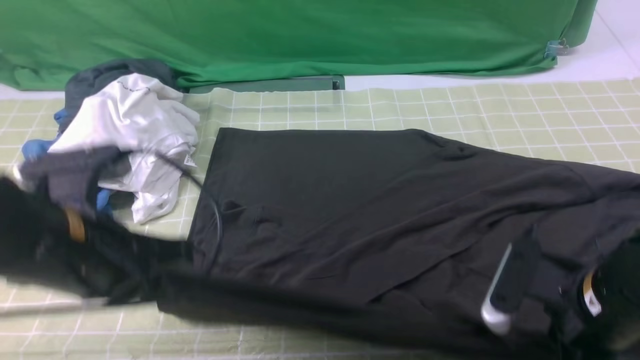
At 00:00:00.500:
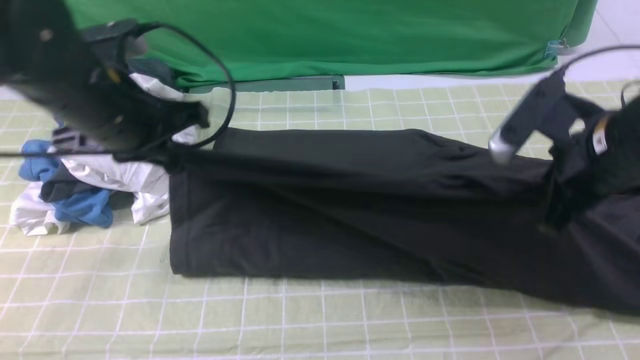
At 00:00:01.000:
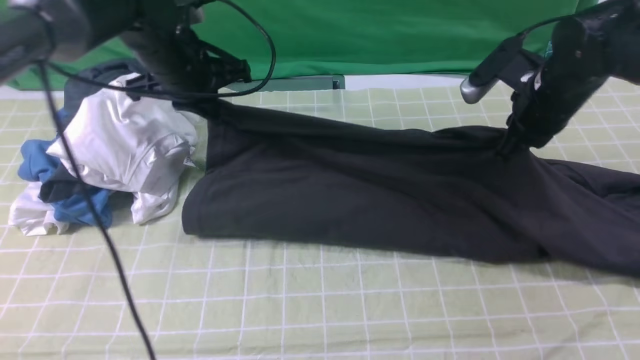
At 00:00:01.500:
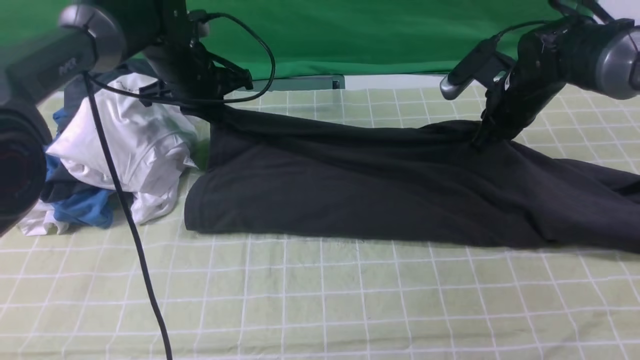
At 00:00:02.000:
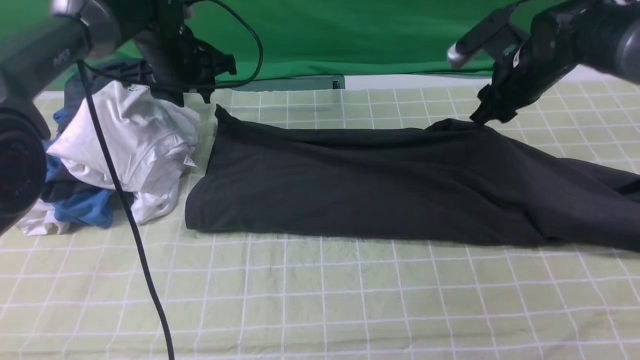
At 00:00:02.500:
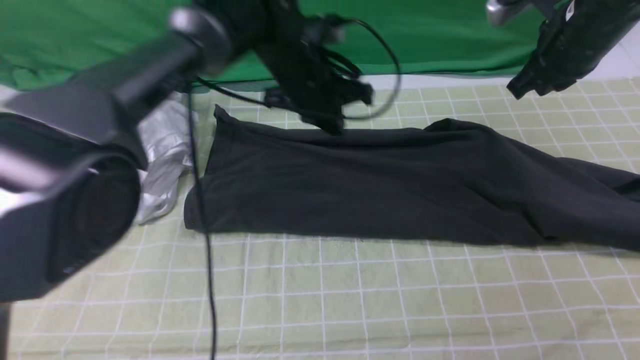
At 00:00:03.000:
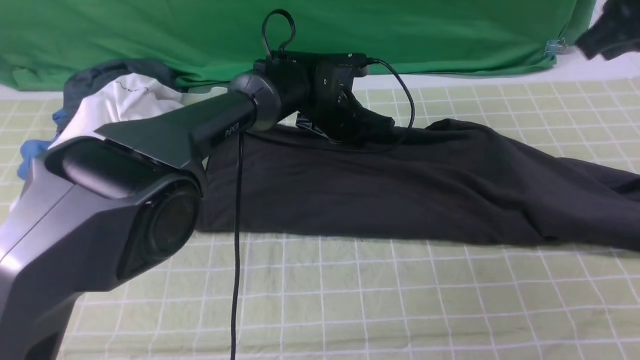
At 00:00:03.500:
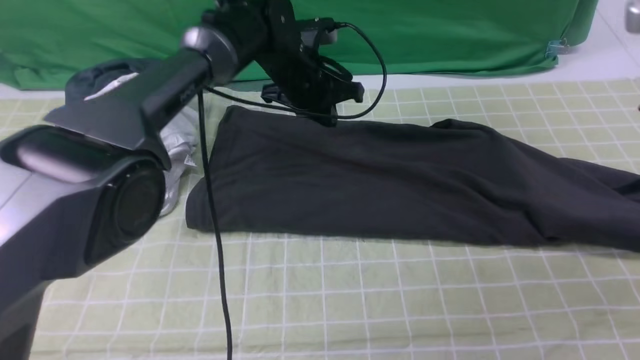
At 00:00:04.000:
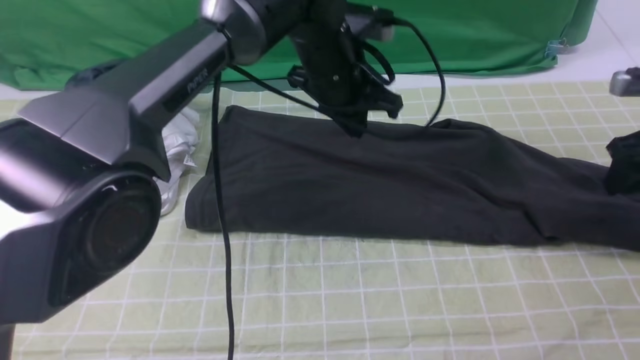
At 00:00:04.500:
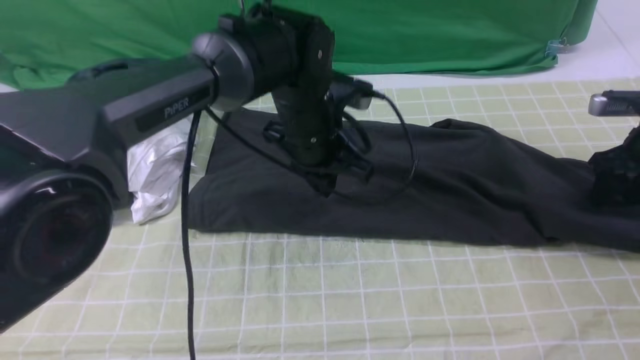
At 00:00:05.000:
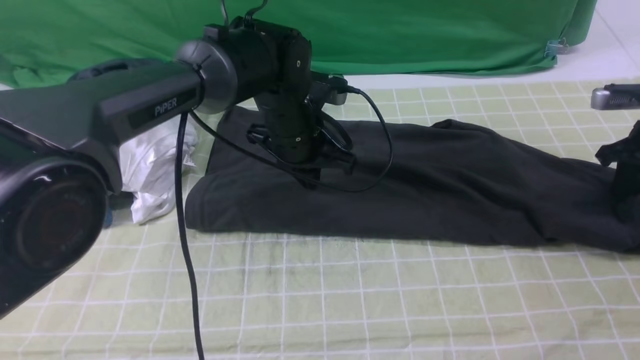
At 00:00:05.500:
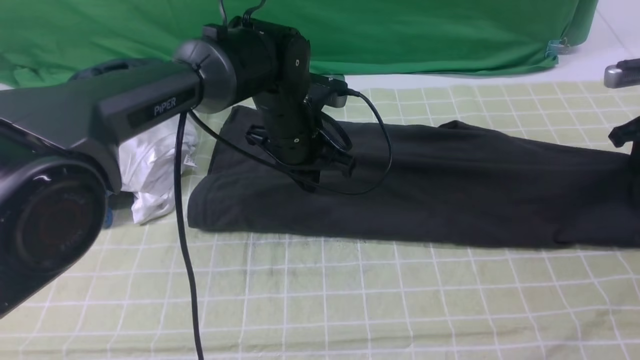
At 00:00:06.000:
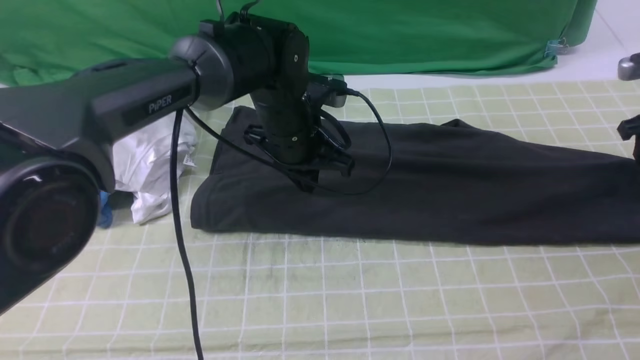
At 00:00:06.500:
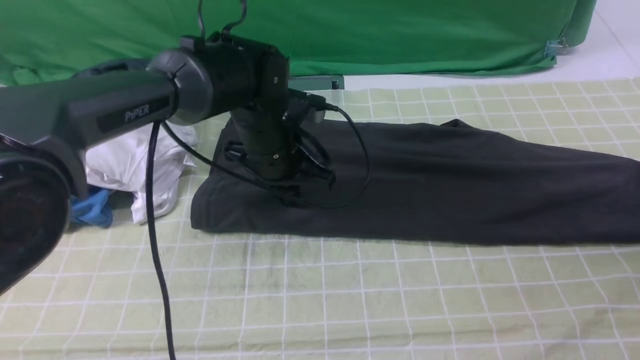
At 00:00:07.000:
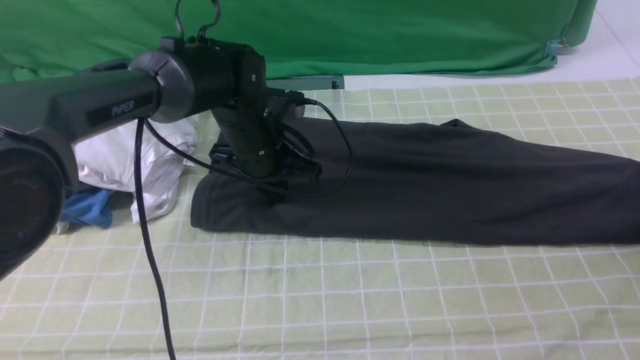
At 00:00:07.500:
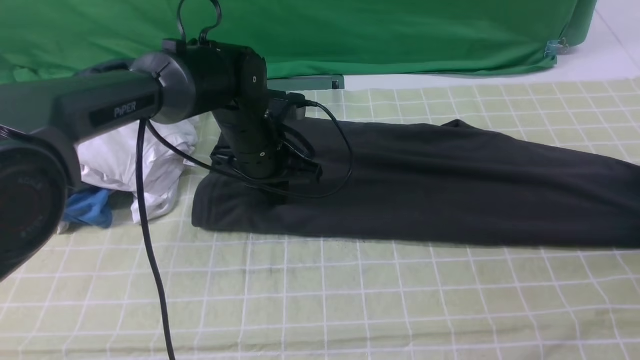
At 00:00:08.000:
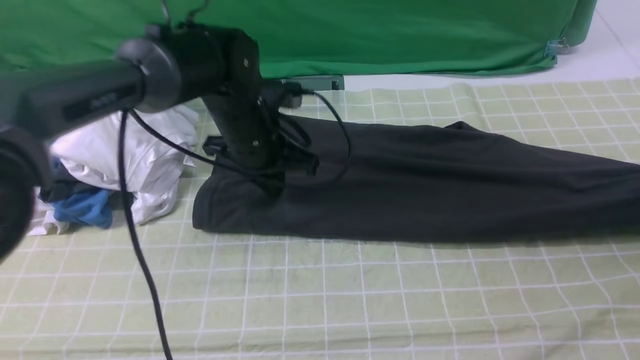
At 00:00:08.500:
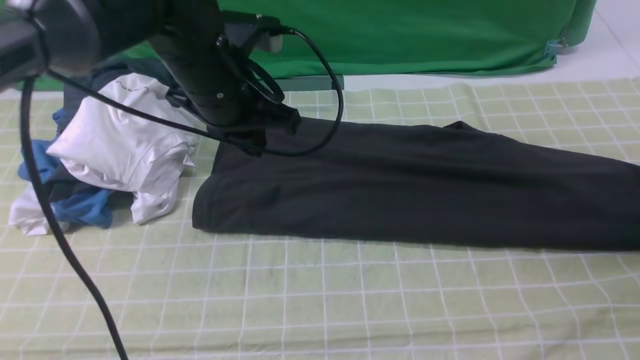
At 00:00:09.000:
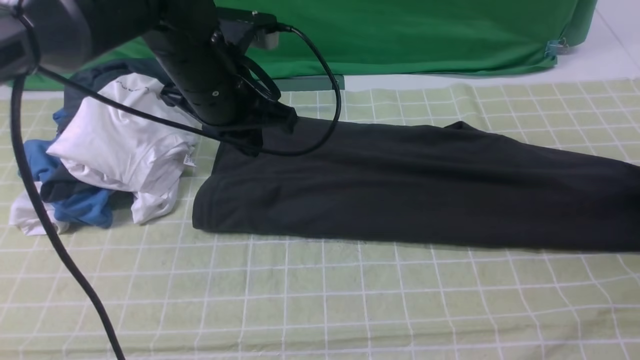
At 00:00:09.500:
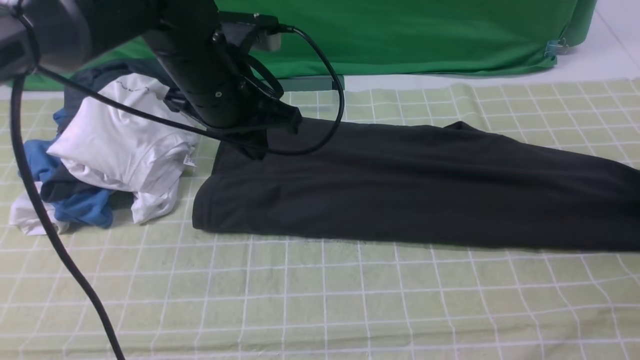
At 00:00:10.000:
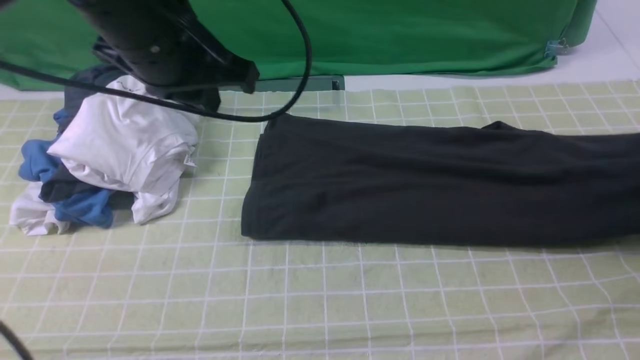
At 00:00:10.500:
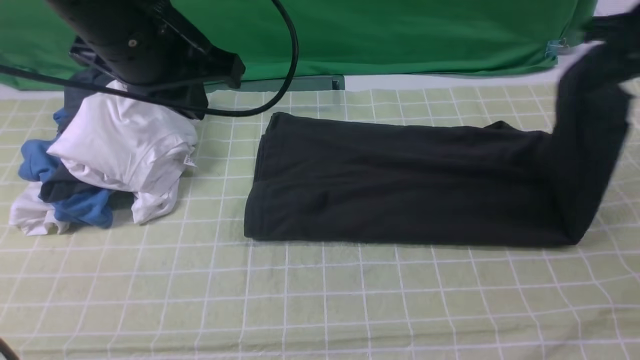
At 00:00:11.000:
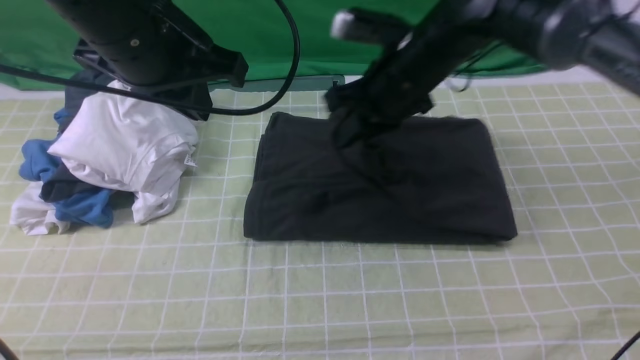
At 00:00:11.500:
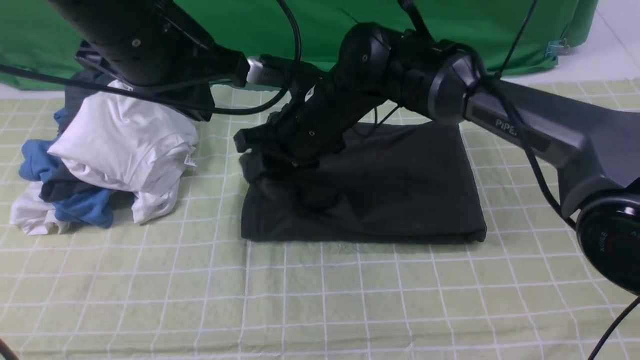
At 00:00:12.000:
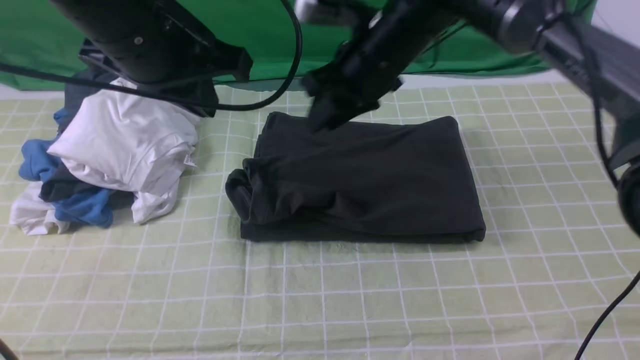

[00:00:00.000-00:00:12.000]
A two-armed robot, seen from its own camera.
Step, 00:00:00.000 to 00:00:03.000: use both arms to drag the lower edge of the fabric forward and fold it over the upper edge.
Step, 00:00:03.500 to 00:00:09.500: use the right arm to clamp the right edge of the fabric.
Step, 00:00:10.000 to 00:00:11.500: use the right arm to drag the right edge of the fabric to the left and folds it over the left edge.
00:00:00.000 to 00:00:02.000: Both grippers move forward, roughly 30 cm. The left gripper opens up. The right gripper opens.
00:00:02.000 to 00:00:04.000: The right gripper goes roughly 15 cm to the right and backward, goes upward and returns, roughly 15 cm each way, and opens its fingers. The left gripper goes about 15 cm to the right, and closes up.
00:00:04.000 to 00:00:06.000: The left gripper shifts roughly 5 cm downward. The right gripper shifts by roughly 5 cm, and closes, then opens again.
00:00:06.000 to 00:00:08.000: The right gripper goes up and down, some 10 cm each way, reversing 2 times, and opens.
00:00:08.000 to 00:00:10.000: The right gripper closes its fingers. Meanwhile the left gripper travels upward and backward by approximately 15 cm.
00:00:10.000 to 00:00:12.000: The right gripper moves to the left, some 40 cm.

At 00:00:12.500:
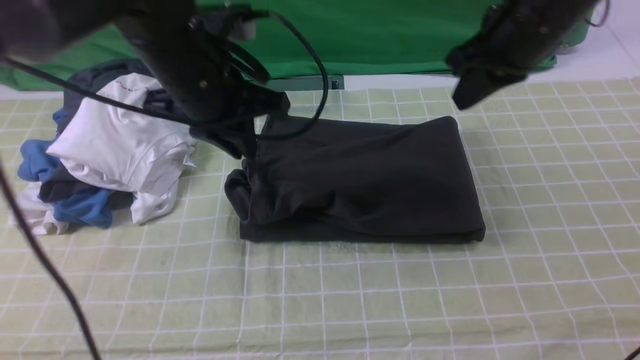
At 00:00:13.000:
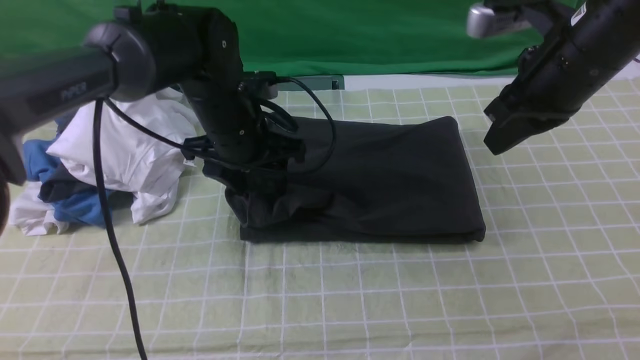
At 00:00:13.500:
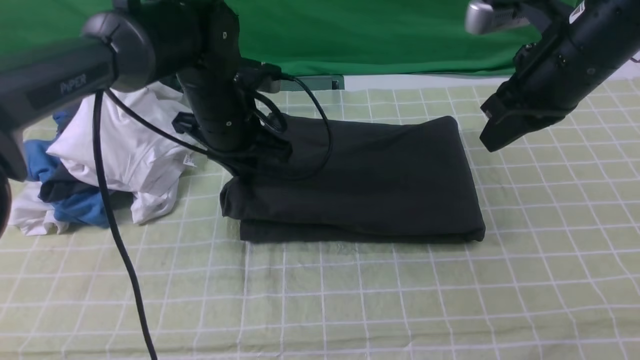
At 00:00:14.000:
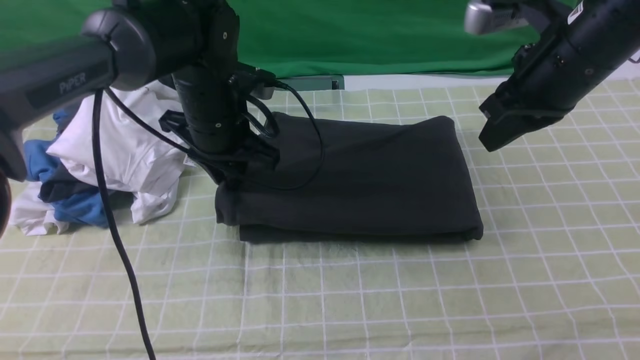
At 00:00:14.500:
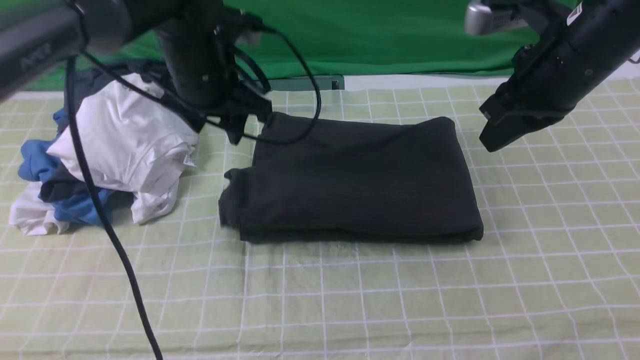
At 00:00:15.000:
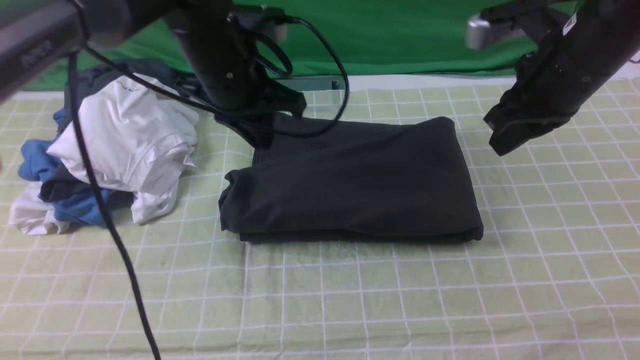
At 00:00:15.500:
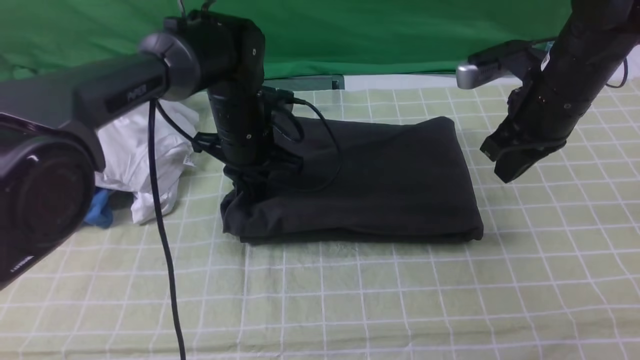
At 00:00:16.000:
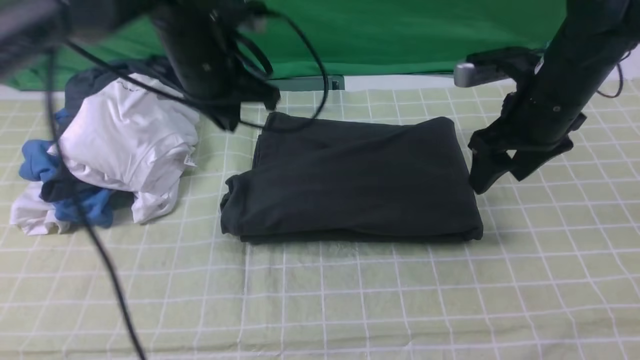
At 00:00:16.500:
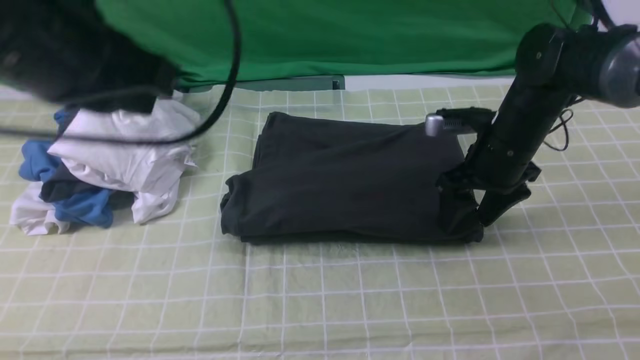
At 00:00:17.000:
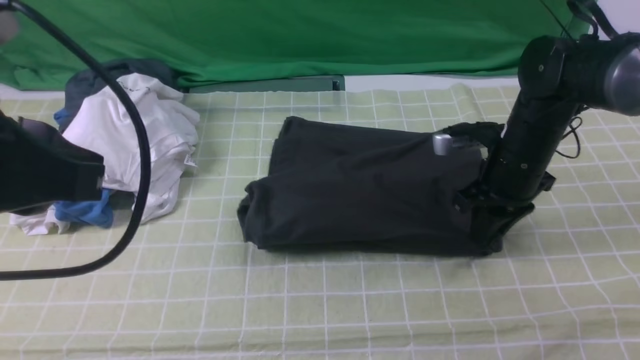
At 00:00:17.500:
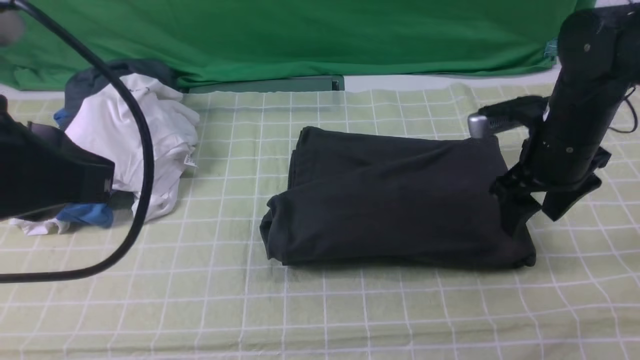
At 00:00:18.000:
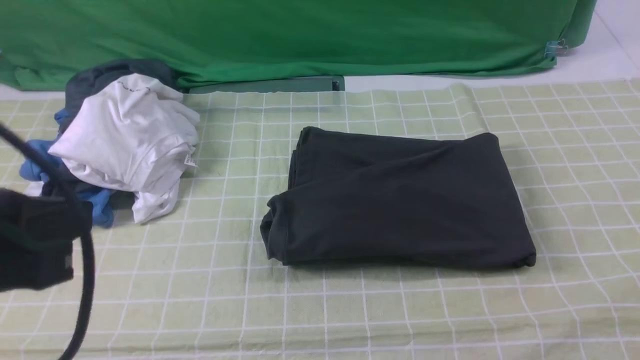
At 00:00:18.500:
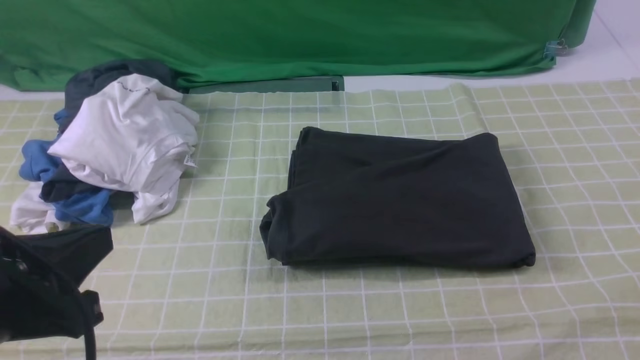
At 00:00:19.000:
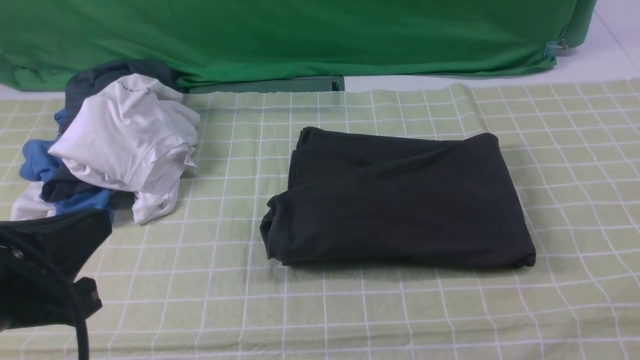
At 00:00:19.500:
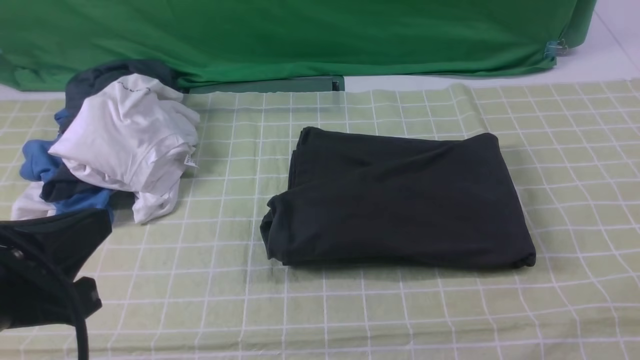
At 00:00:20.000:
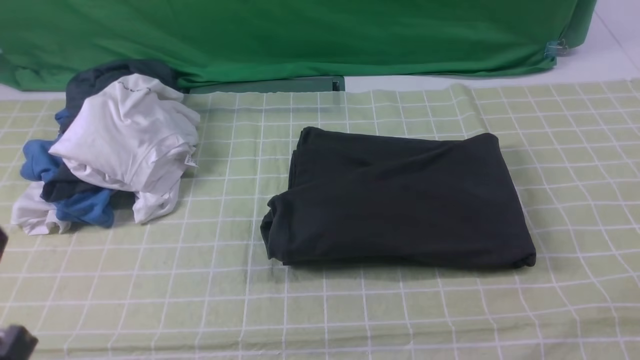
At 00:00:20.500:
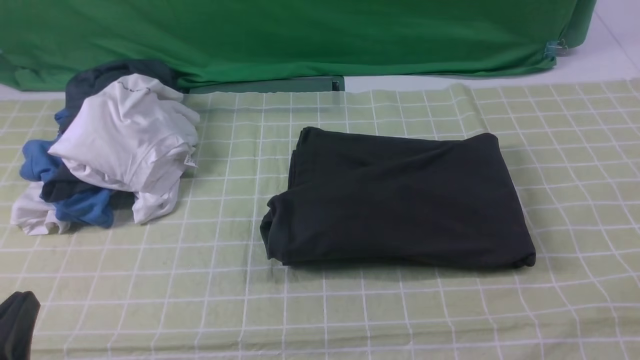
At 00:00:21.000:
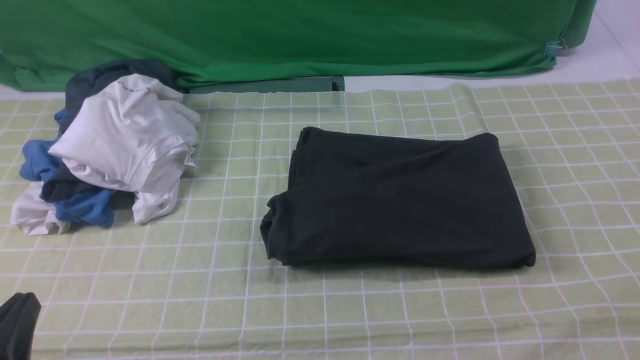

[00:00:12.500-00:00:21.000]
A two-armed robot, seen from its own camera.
00:00:12.500 to 00:00:14.500: The left gripper moves roughly 10 cm downward and comes back, and opens up.
00:00:14.500 to 00:00:16.500: The right gripper travels downward by some 15 cm, and opens its fingers, while the left gripper moves backward and upward, about 20 cm, and closes its fingers.
00:00:16.500 to 00:00:19.000: The right gripper heads backward and upward, covering some 40 cm, and closes. The left gripper heads backward and downward, covering about 15 cm.
00:00:19.000 to 00:00:21.000: The left gripper goes about 10 cm downward.
